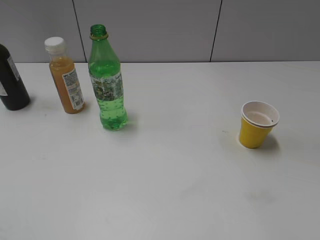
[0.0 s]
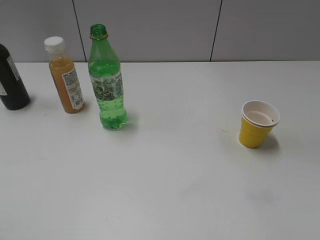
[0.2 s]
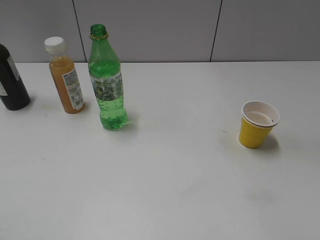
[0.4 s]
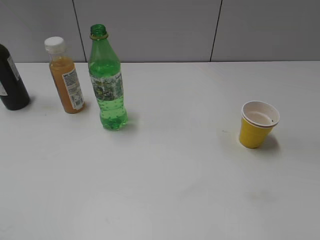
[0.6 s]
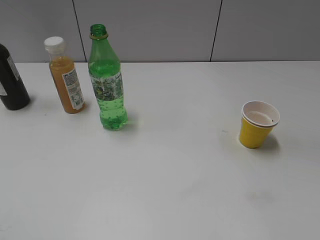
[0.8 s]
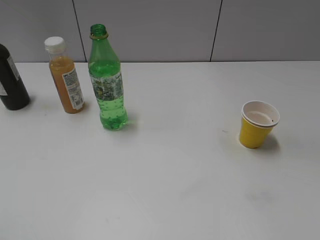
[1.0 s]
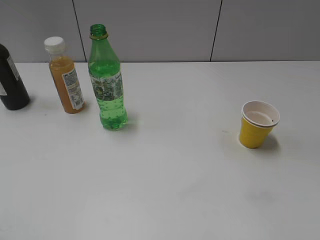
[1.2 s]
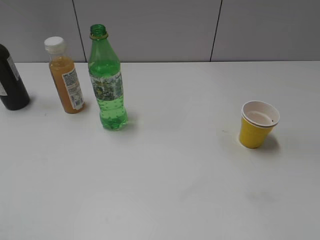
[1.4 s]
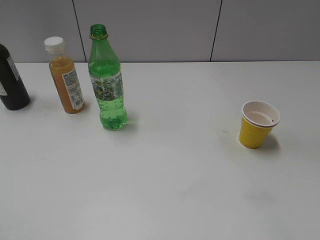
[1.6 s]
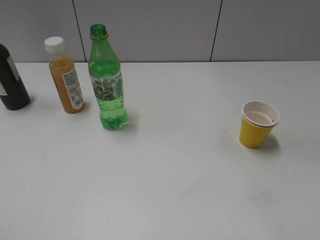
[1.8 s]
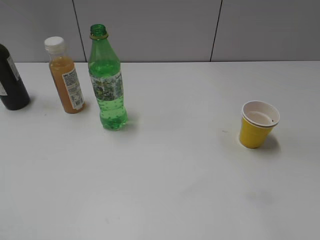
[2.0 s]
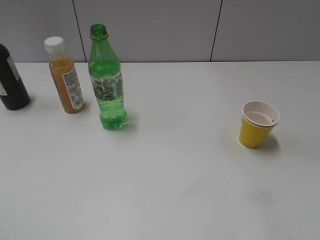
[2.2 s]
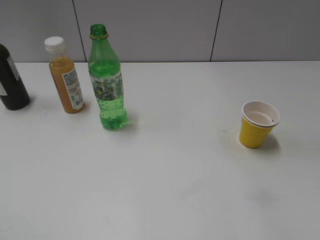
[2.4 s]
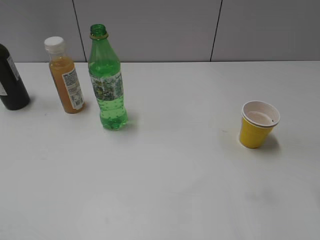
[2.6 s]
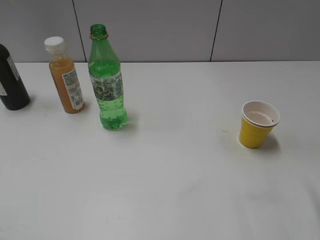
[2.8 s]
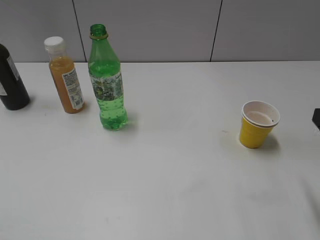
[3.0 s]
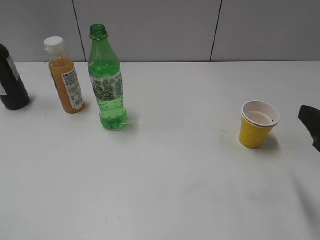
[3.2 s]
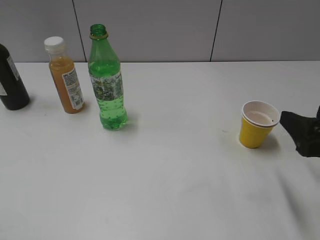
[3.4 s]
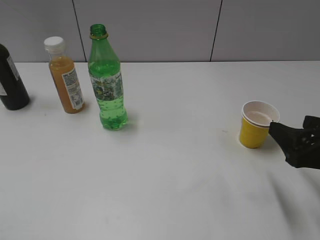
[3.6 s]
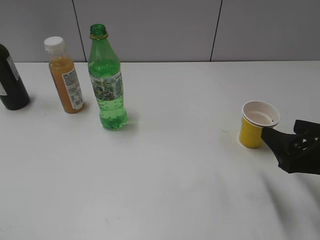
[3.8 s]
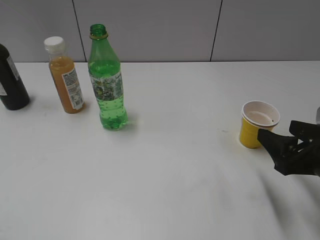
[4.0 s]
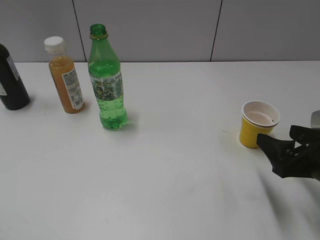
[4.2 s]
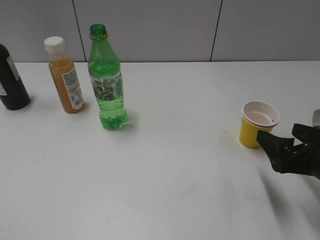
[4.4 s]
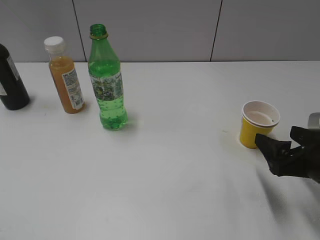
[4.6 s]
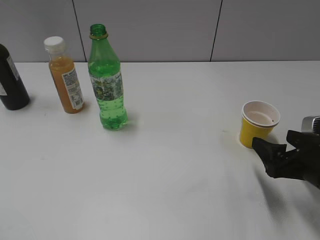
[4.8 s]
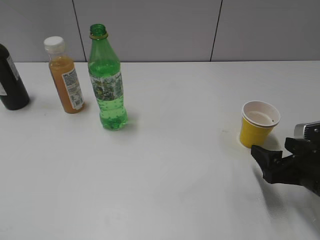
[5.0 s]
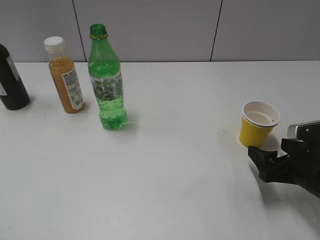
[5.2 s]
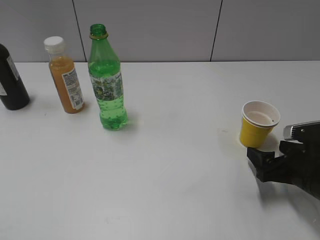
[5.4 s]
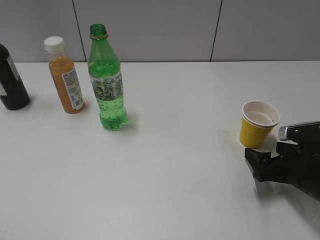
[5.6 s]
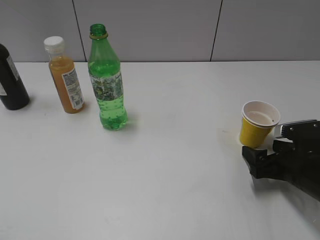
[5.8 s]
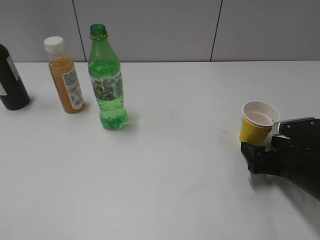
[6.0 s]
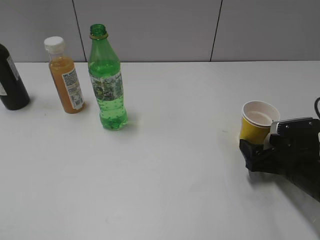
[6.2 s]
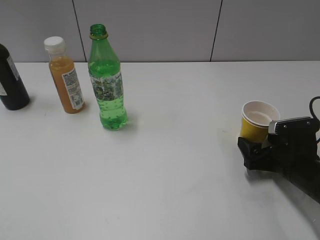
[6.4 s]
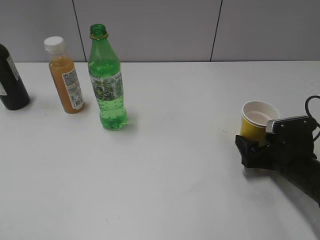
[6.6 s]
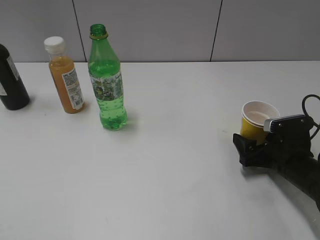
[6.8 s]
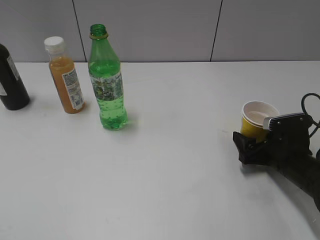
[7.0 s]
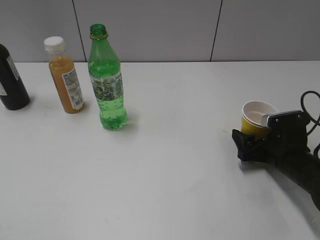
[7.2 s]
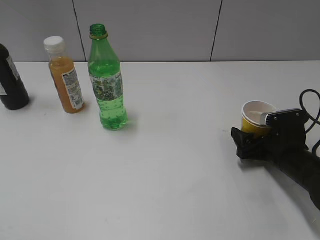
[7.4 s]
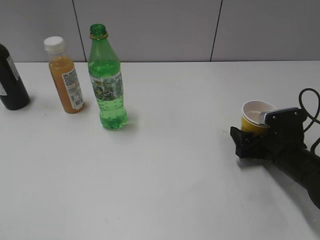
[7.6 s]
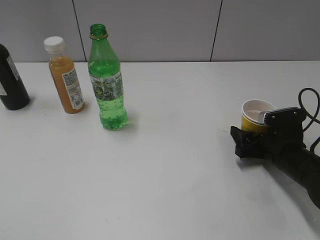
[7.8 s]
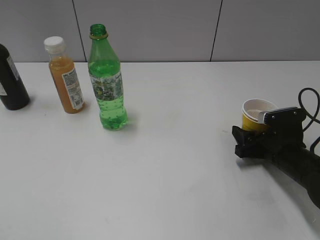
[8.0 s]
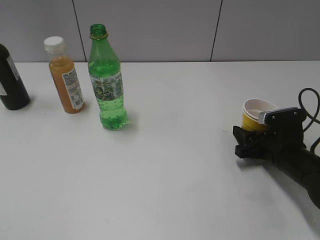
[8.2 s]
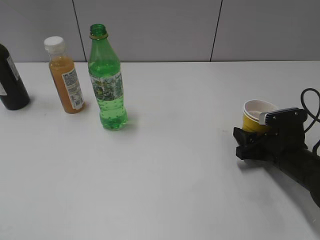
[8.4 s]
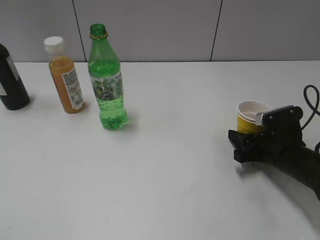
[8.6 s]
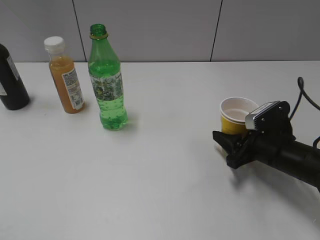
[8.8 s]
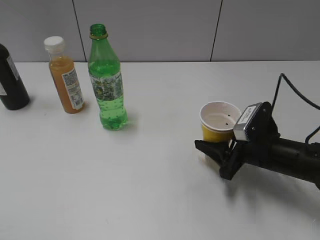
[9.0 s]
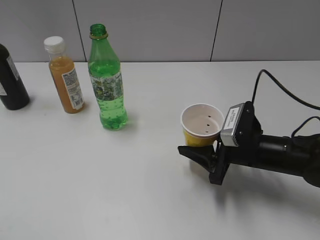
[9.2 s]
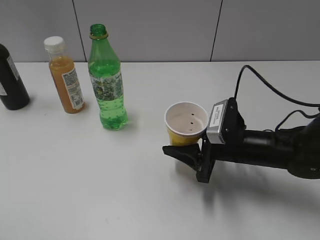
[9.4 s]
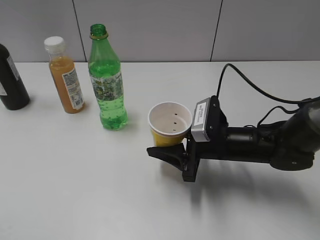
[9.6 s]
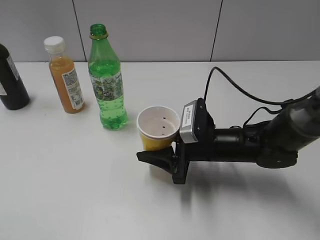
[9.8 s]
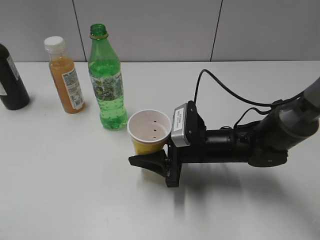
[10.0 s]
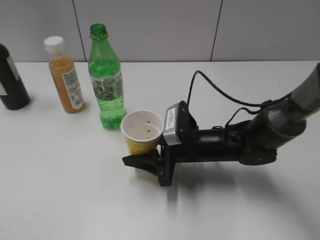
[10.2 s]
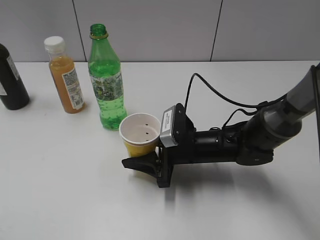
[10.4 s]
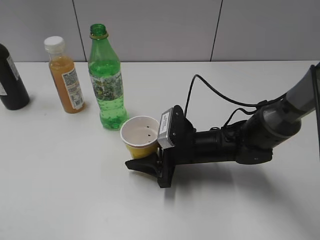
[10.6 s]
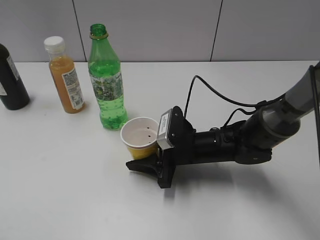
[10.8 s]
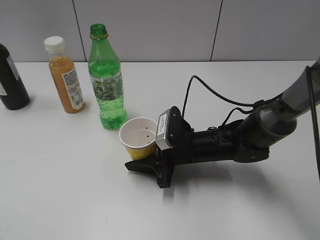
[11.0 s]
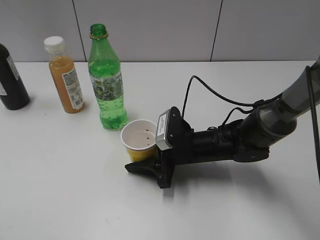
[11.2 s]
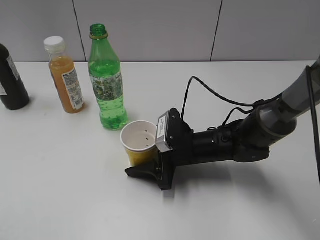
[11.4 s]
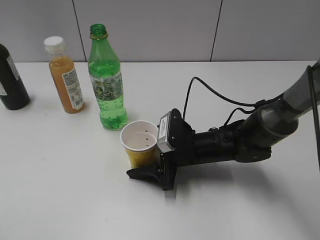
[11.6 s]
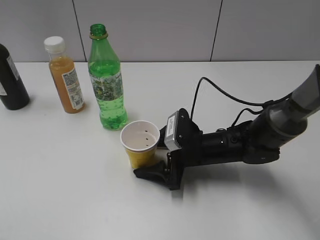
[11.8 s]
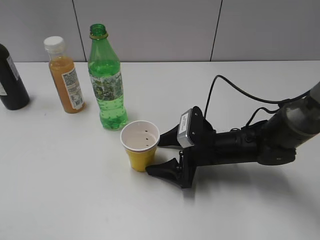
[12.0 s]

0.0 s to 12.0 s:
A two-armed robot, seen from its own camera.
Step, 1.2 to 8.2 s: Grasp the yellow paper cup with right gripper.
3.0 to 4.4 s: The right gripper is displaced downward by about 10 cm.
4.4 to 6.0 s: The right gripper heads downward, covering approximately 10 cm.
6.0 to 7.6 s: The grippers make only small movements.
7.6 to 9.0 s: The right gripper shifts by roughly 5 cm, and closes its fingers.
9.0 to 10.4 s: The right gripper moves to the left, roughly 15 cm.
10.4 to 12.0 s: The right gripper opens.

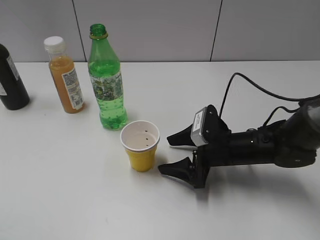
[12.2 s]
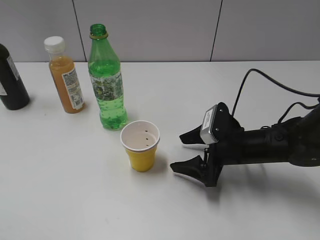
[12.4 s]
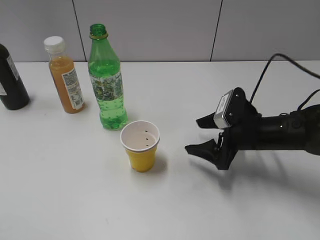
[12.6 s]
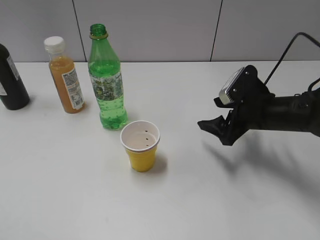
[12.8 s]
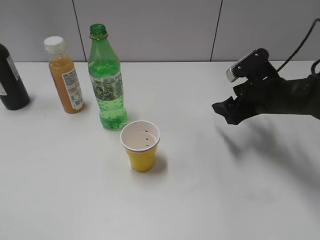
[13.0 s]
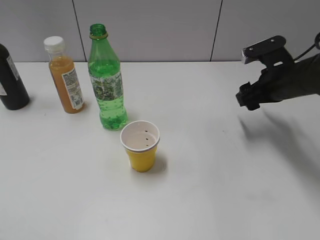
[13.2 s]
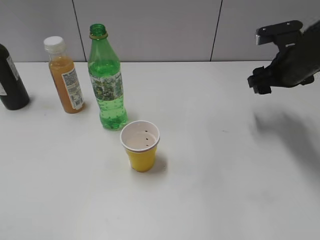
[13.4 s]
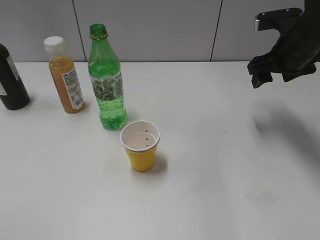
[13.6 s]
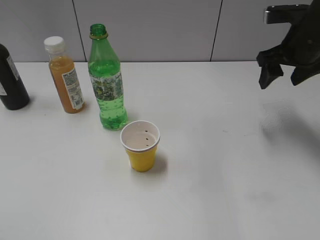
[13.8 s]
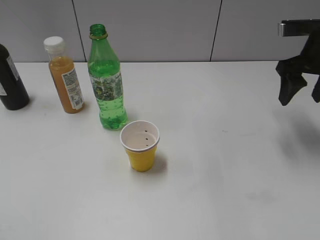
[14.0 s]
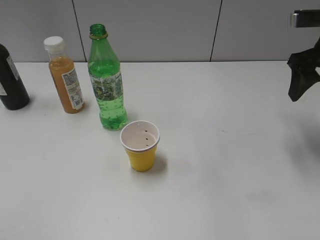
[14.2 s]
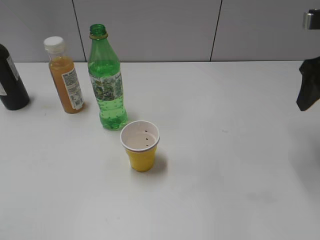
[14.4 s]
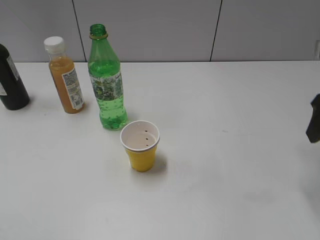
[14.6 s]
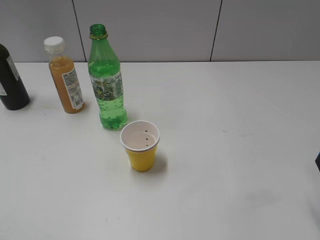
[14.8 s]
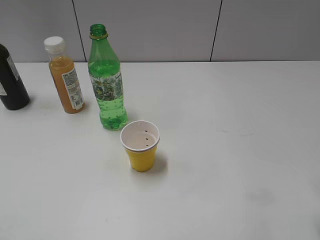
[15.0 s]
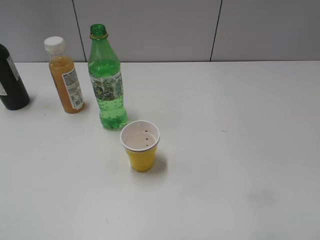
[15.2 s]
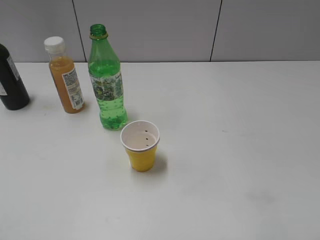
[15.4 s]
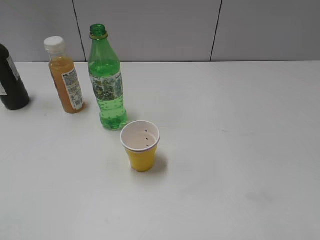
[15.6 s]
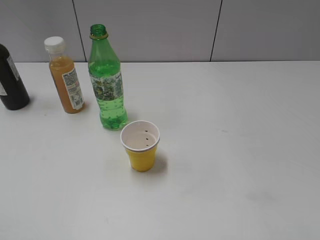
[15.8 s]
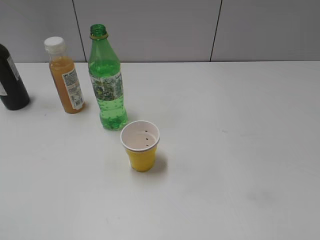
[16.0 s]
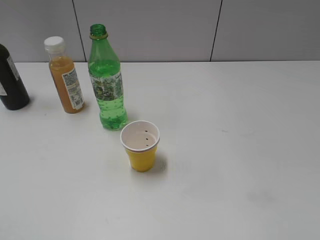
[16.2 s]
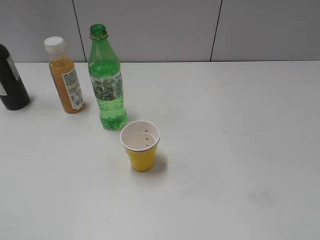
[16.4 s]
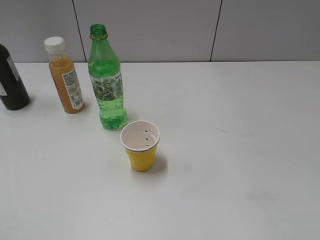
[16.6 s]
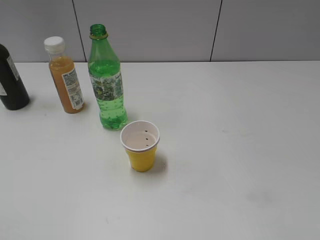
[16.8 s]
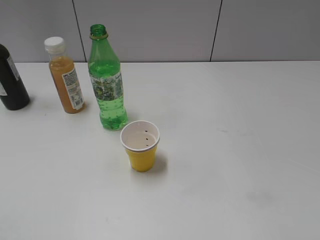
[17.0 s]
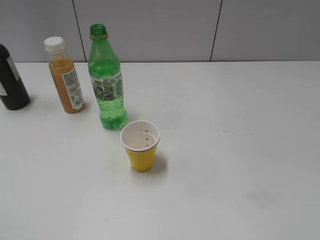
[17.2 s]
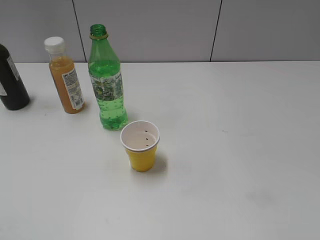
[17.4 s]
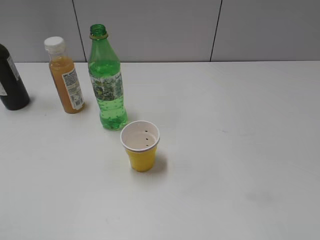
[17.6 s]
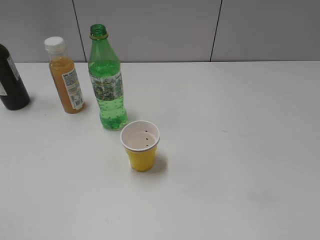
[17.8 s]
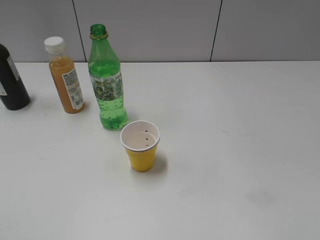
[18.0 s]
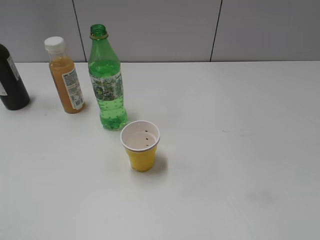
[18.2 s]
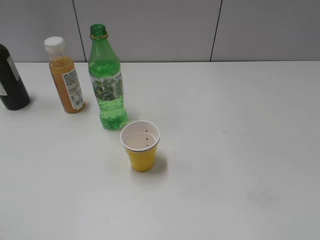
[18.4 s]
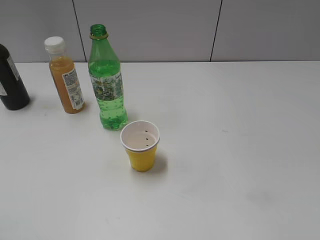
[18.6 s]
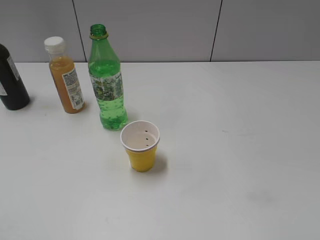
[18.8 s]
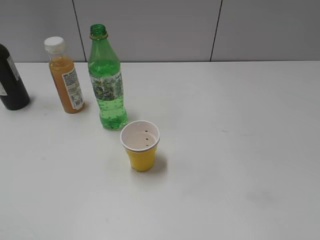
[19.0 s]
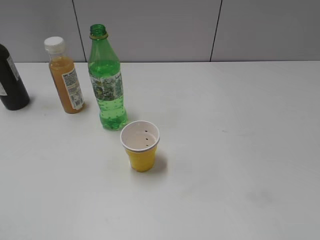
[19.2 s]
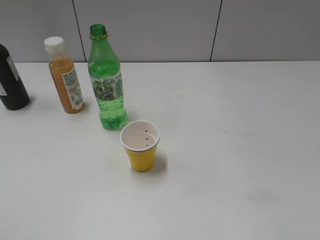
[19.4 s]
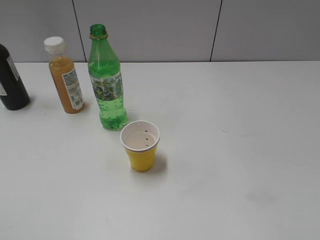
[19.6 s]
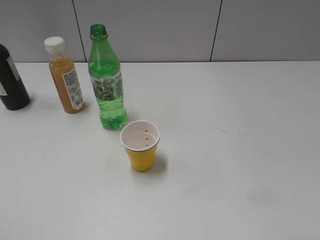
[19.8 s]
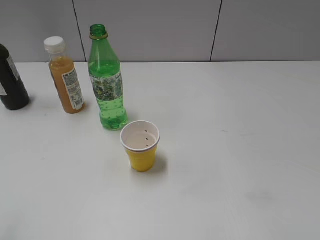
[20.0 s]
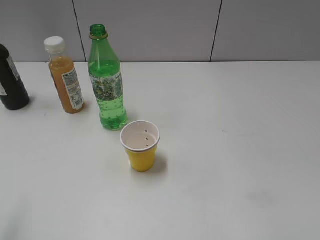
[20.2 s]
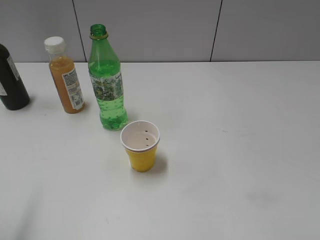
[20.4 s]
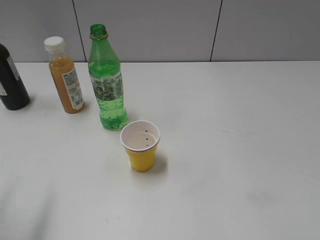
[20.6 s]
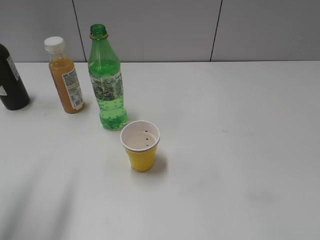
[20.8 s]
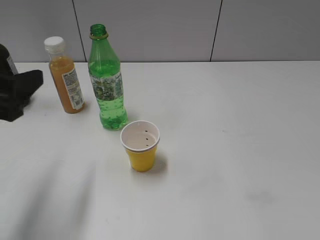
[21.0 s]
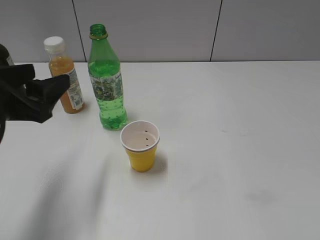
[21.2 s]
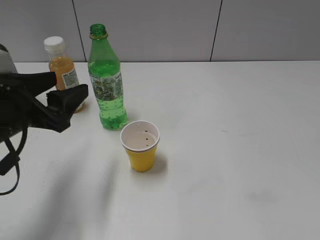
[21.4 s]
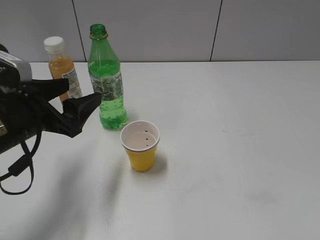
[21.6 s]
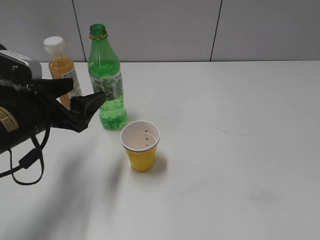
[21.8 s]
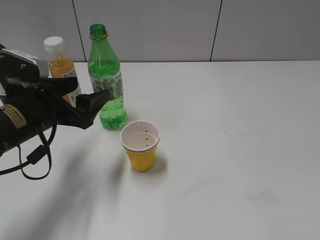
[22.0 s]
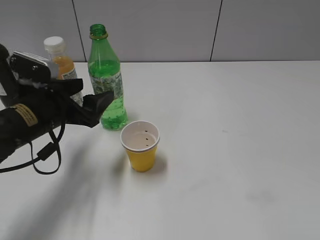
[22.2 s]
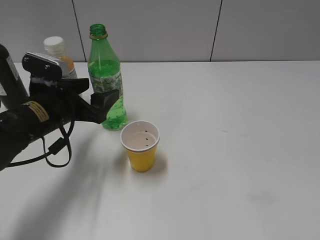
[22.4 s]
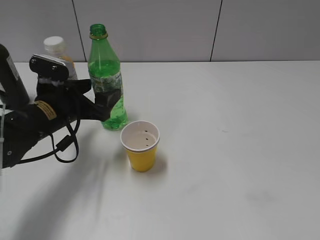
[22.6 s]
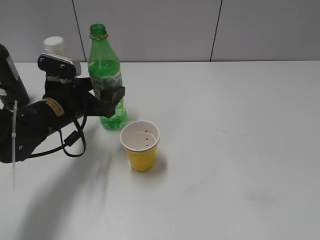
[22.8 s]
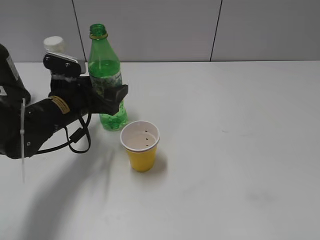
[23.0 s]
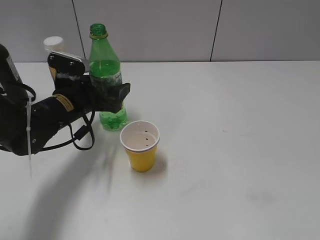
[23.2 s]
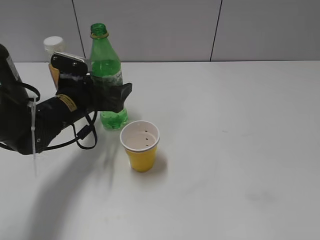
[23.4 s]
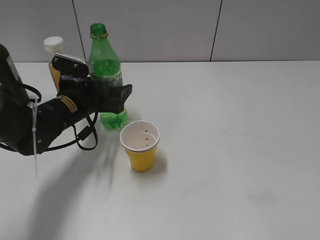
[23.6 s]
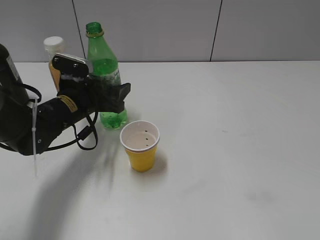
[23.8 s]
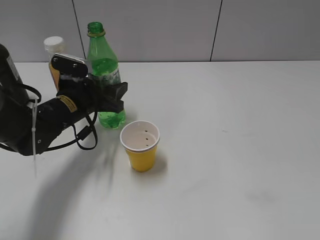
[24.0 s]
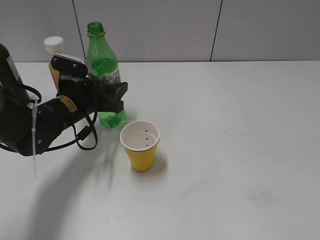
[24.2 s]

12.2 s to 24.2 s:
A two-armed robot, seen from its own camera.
Step, 12.2 to 24.2 s: Grasp the bottle with sprite with left gripper.
12.2 to 13.8 s: The right gripper heads upward, to the right and forward, covering about 25 cm.
13.8 to 15.2 s: The right gripper travels backward by approximately 25 cm.
19.8 to 21.2 s: The left gripper travels forward and downward by approximately 20 cm.
21.2 to 22.6 s: The left gripper is displaced forward and downward by about 15 cm, and opens up.
22.6 to 24.2 s: The left gripper shifts by about 5 cm, and closes its fingers.
